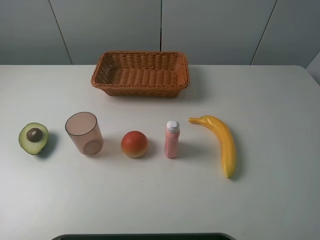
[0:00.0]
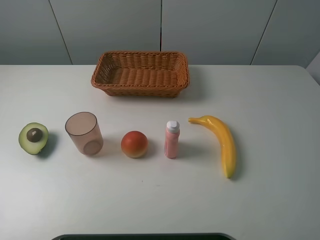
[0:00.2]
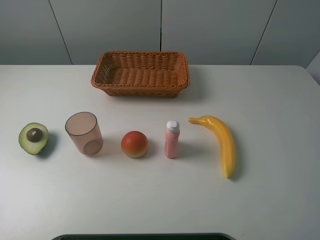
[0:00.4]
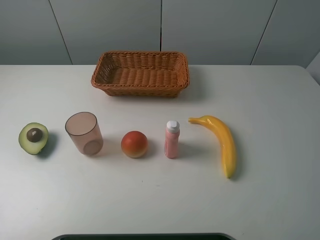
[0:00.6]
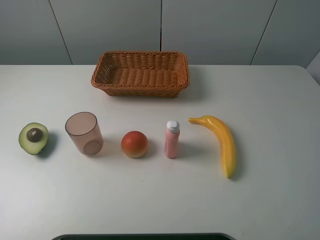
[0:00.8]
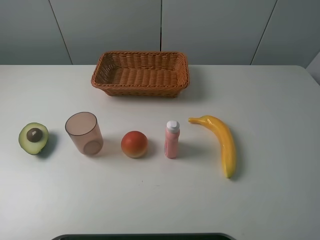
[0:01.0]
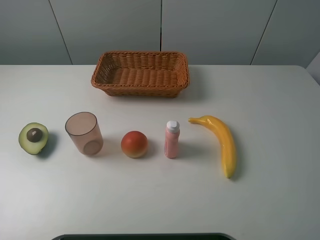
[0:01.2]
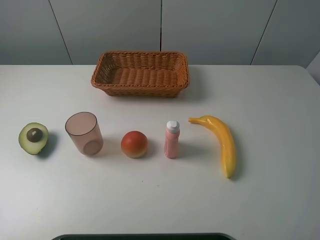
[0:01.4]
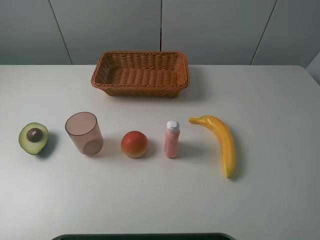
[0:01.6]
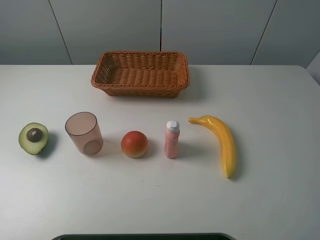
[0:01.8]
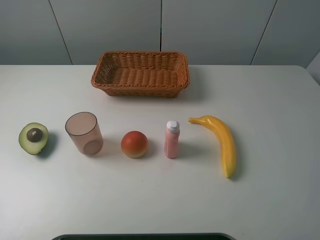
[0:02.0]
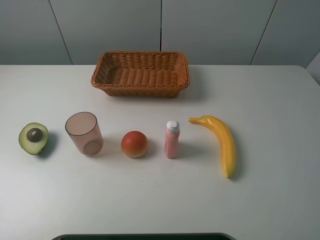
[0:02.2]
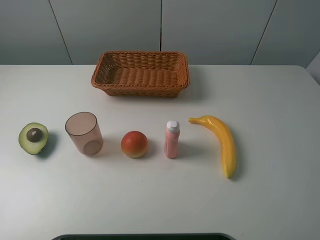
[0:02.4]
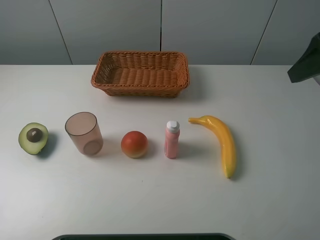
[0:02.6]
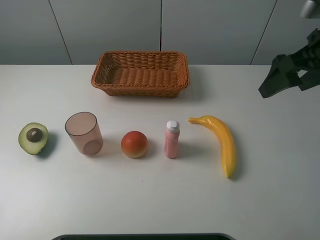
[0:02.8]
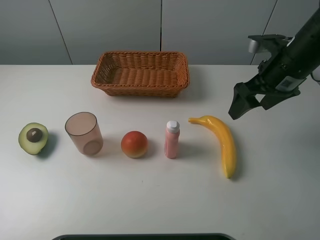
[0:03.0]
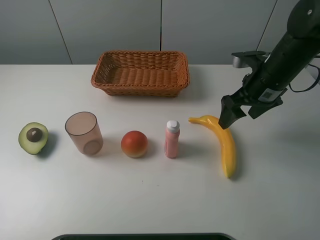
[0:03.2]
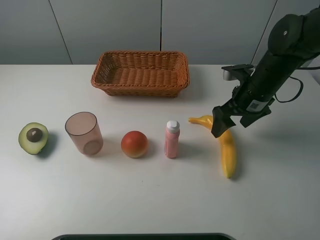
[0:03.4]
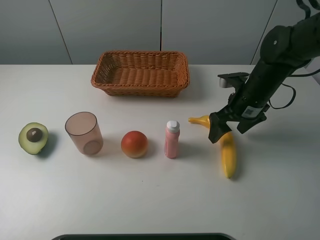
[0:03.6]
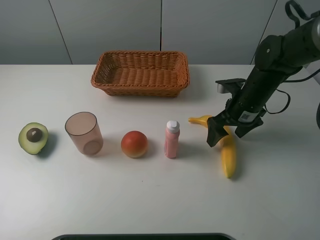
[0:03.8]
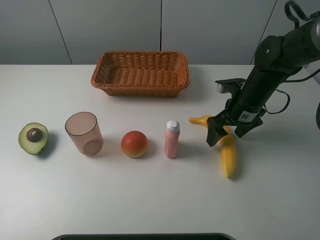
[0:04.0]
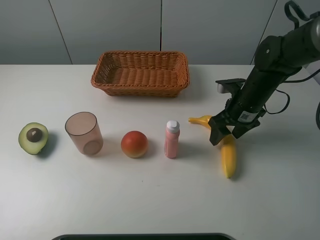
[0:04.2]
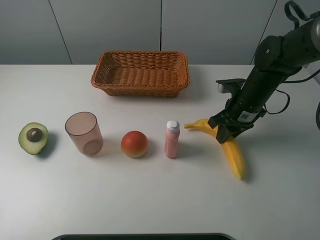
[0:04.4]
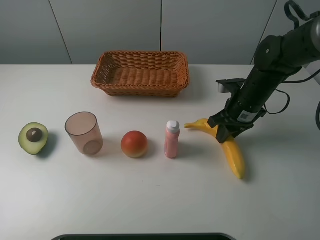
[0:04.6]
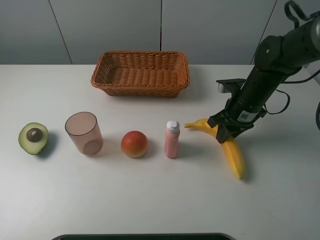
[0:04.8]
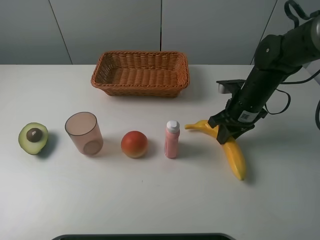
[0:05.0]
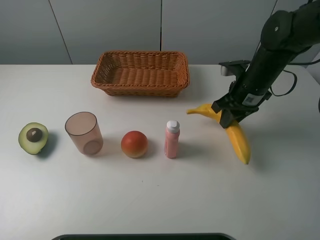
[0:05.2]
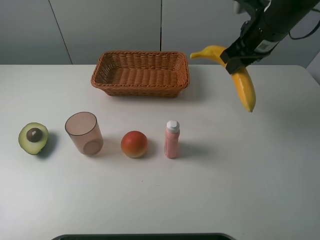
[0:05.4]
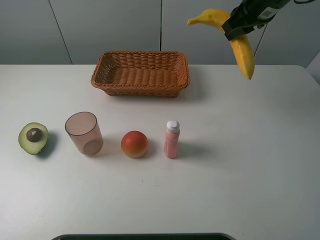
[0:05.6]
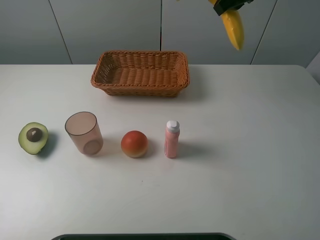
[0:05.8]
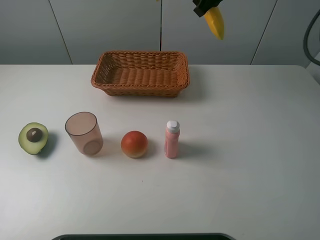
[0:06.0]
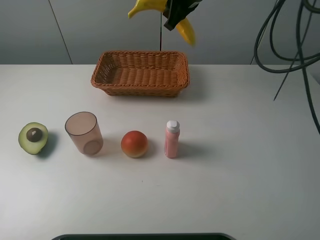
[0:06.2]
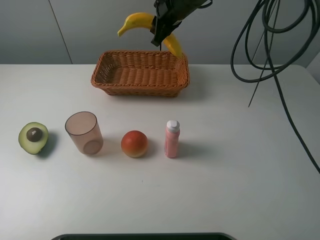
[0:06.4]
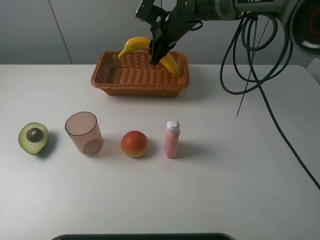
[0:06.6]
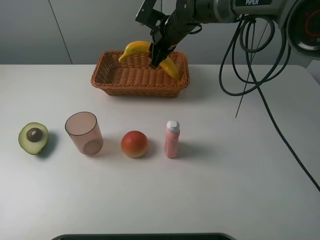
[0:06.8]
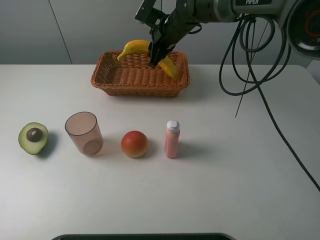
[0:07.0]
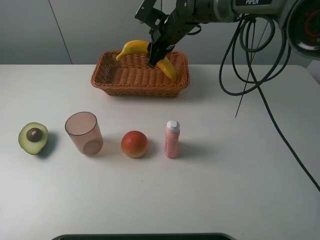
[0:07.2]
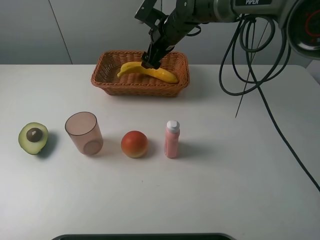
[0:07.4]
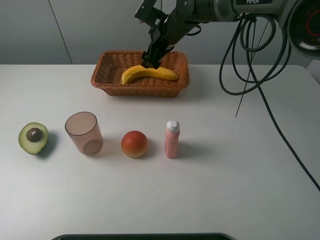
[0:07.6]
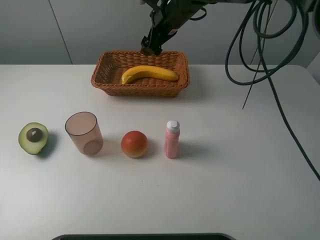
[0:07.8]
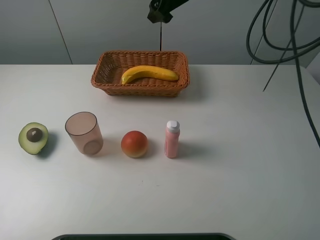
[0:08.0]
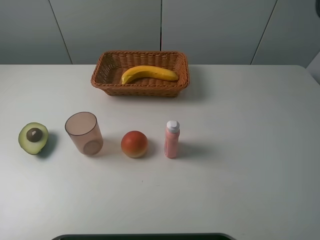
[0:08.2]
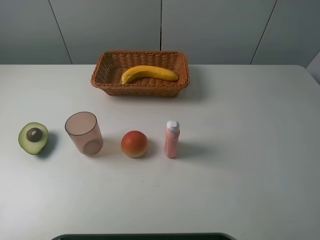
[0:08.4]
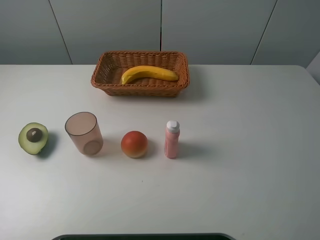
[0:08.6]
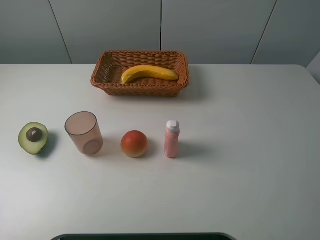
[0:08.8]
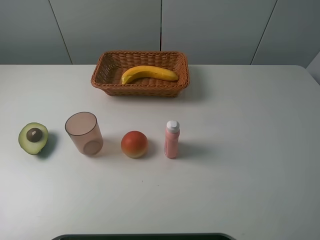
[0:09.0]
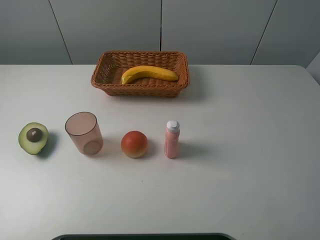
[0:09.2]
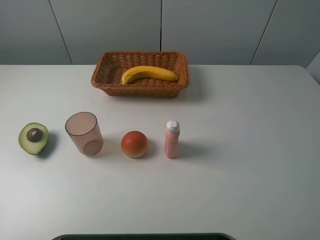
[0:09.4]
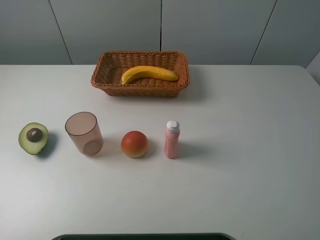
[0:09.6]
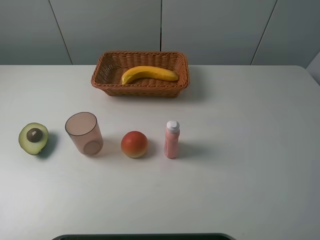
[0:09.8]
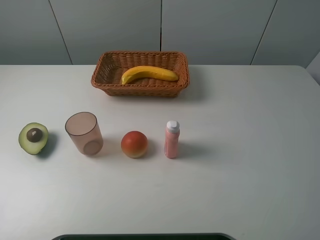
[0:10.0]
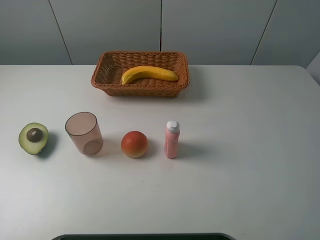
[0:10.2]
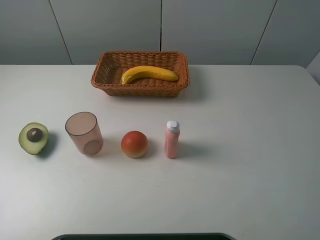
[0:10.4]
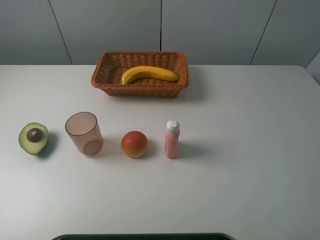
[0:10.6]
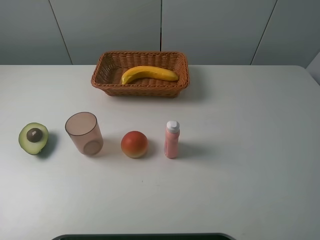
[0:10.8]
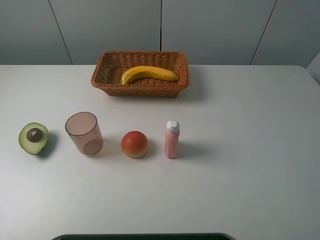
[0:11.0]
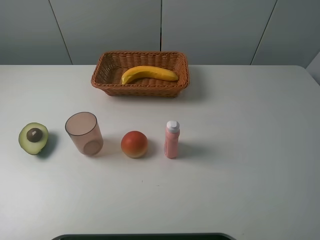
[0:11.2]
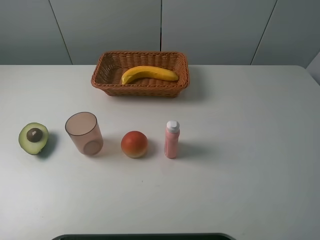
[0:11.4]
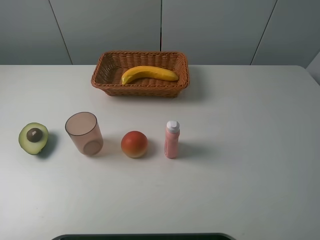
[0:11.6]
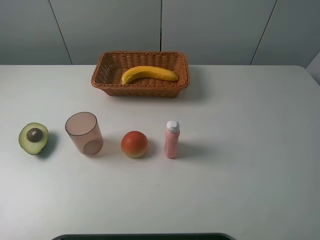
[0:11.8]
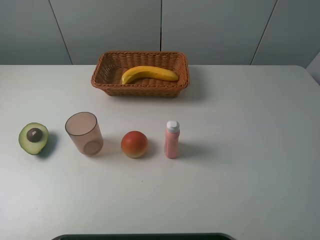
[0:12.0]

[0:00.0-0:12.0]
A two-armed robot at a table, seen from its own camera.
Task of the whole recording: randomly pick up an item from the table and put it in the basket.
Step, 0:00.0 to 0:04.4: Grasp the banana with the right gripper.
Step, 0:04.6 to 0:08.0: Place the banana into the basket with the right gripper.
0:00.0 to 0:01.6: Both grippers stay about where they are.
0:01.6 to 0:03.0: The right gripper shifts about 30 cm forward.
0:03.0 to 0:04.4: The right gripper heads downward, covering roughly 10 cm, and closes.
0:04.4 to 0:06.0: The right gripper shifts roughly 25 cm upward and forward.
0:06.0 to 0:07.6: The right gripper moves downward and to the left, about 15 cm, and opens up.
0:07.6 to 0:09.0: The right gripper is displaced to the right, upward and backward by about 40 cm.
0:10.4 to 0:12.0: Both grippers stay put.
